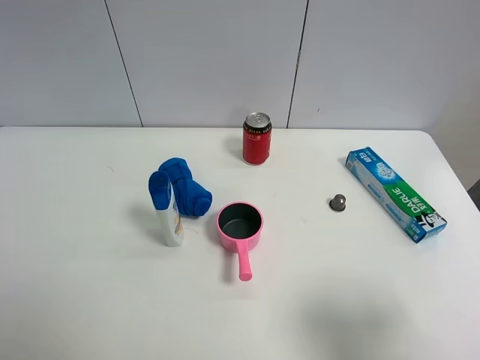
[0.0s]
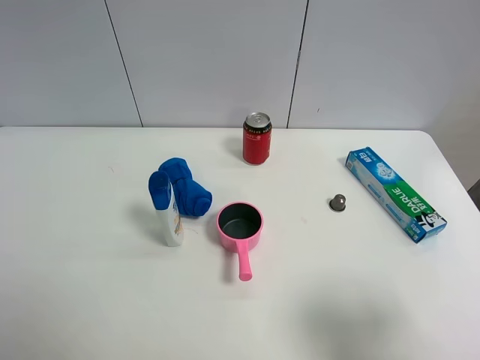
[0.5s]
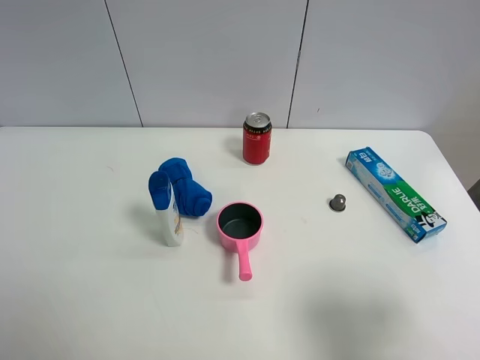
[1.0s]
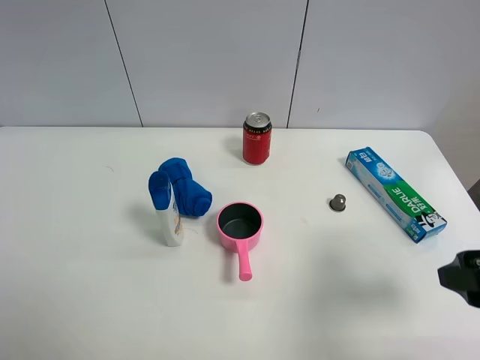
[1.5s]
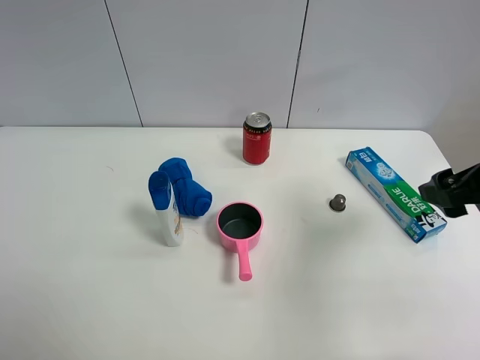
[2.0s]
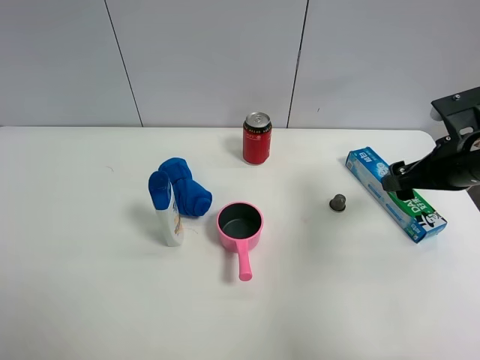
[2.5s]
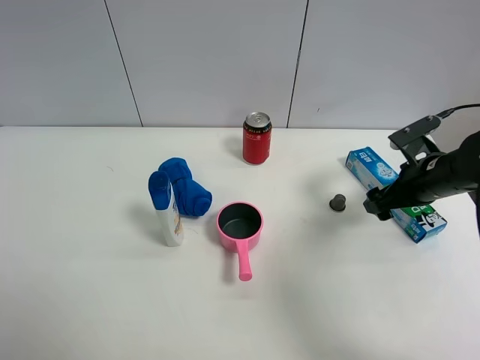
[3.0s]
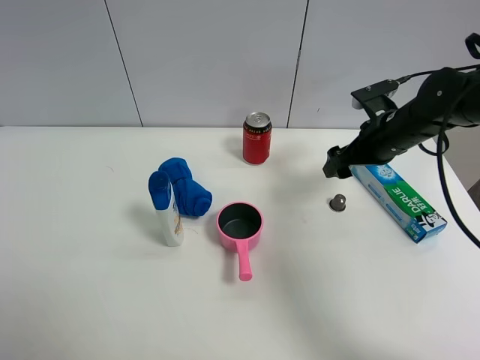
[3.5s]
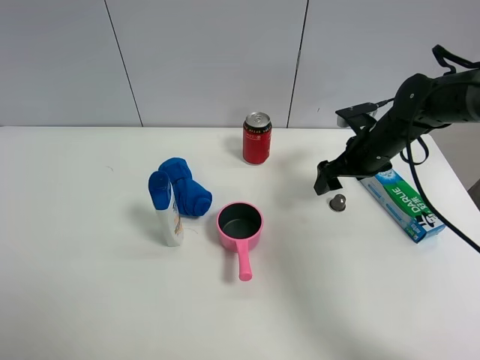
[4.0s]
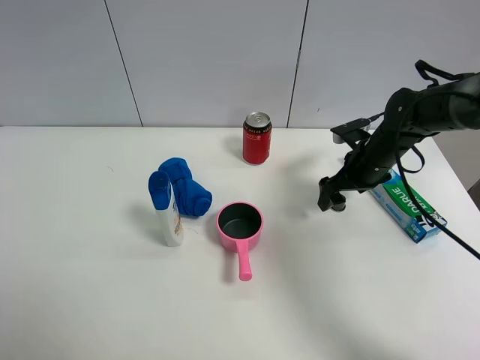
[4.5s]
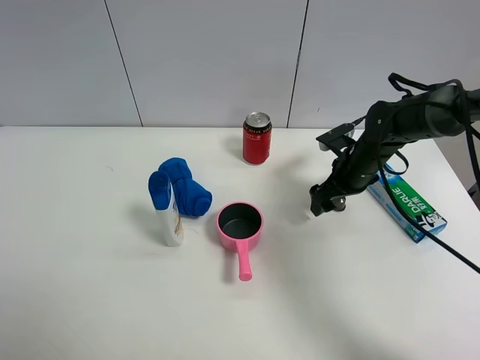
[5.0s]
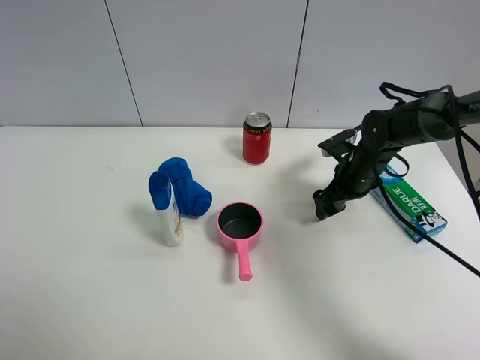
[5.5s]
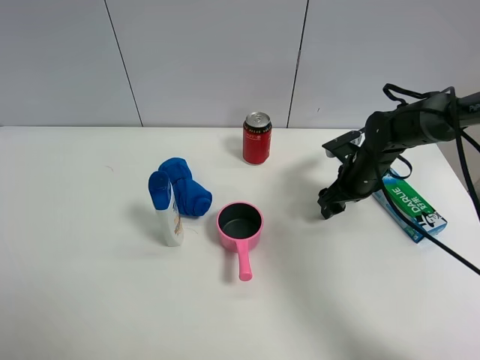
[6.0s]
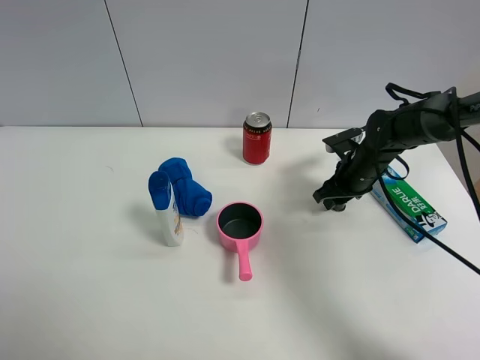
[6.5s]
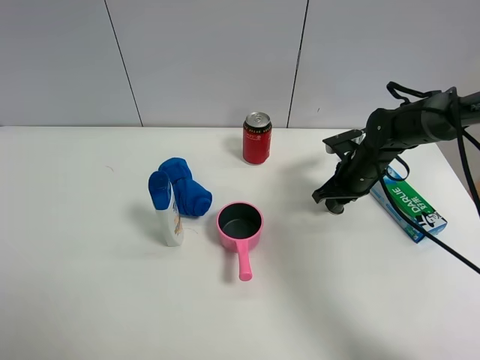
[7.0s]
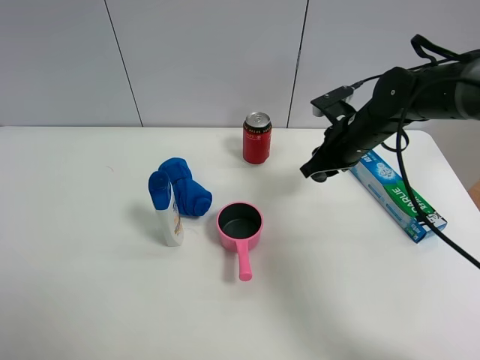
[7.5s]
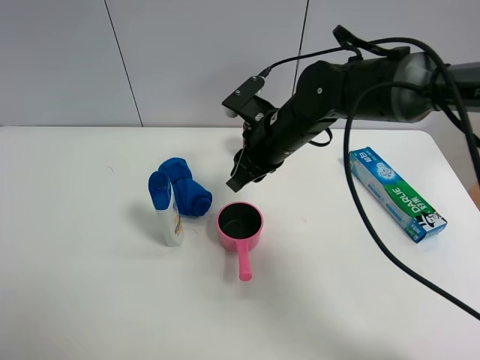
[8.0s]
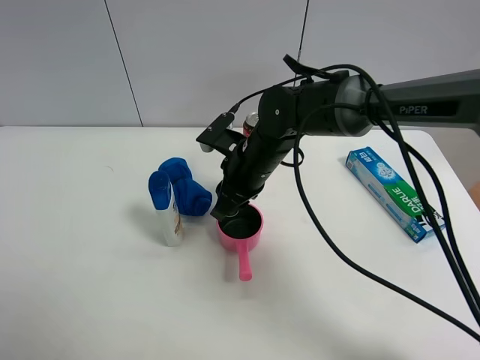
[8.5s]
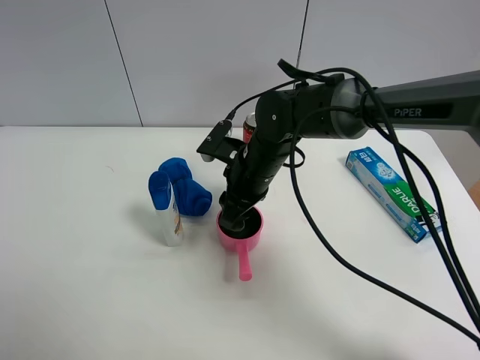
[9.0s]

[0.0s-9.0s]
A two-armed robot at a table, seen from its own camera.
Task of the whole recording: the gripper move the object.
Step, 0.0s to 6.5s: Grasp the coffee capsule with the right gripper.
0.0s to 2.0s: The right gripper heads forward, covering roughly 20 cm.
2.0s to 4.5s: The right gripper travels forward and downward by some 20 cm.
4.5s to 7.0s: The right gripper closes its fingers.
7.0s to 9.0s: The right gripper is displaced to the left by about 20 cm.

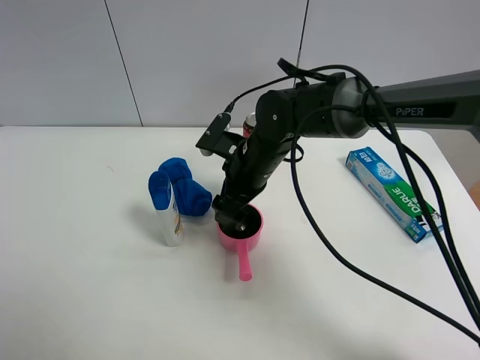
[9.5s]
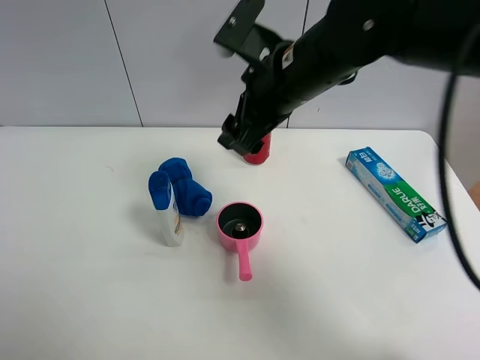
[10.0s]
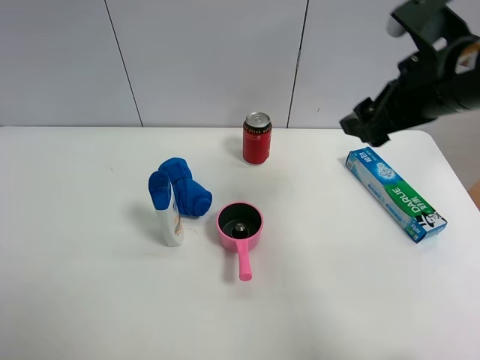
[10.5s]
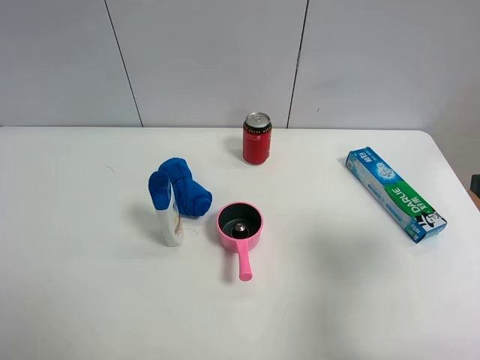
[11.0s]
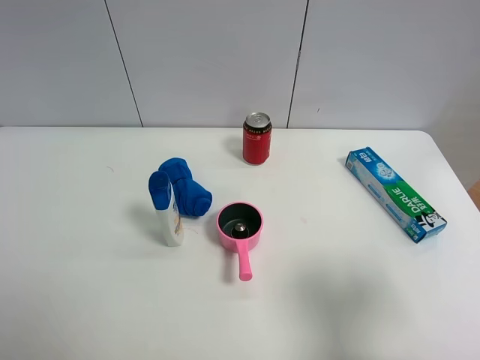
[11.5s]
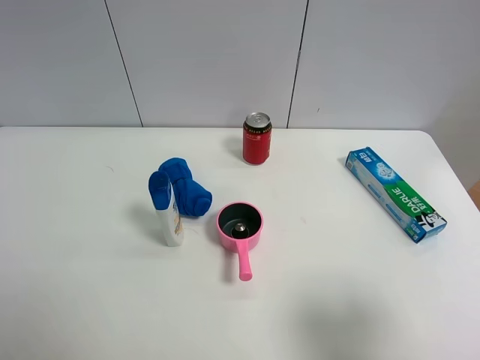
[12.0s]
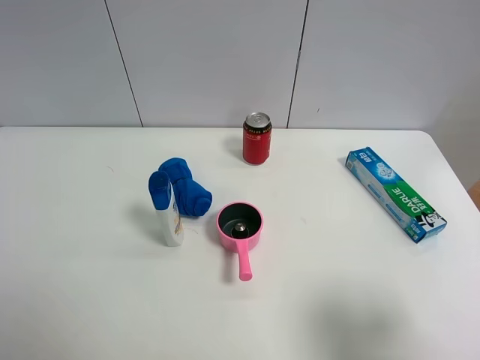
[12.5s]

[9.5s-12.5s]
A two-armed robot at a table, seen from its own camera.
Task of the whole recording: the gripper move the object.
9.5s to 11.0s: The right gripper travels to the right and backward by approximately 35 cm.
11.0s to 12.5s: The right gripper moves backward, roughly 10 cm.

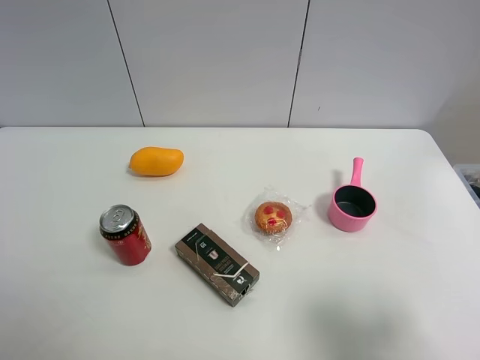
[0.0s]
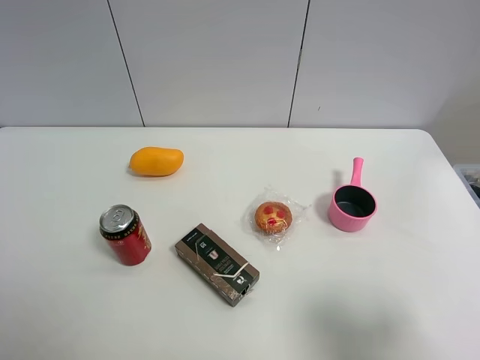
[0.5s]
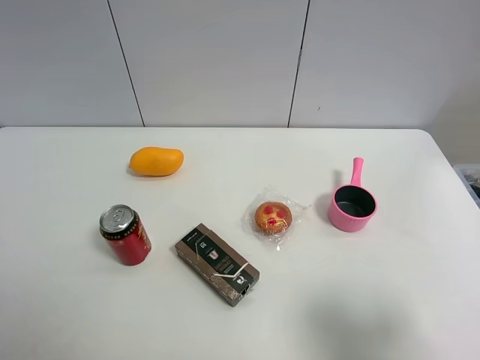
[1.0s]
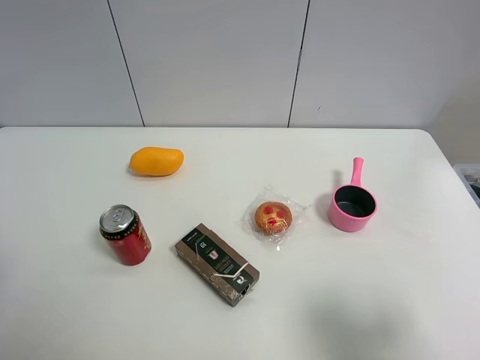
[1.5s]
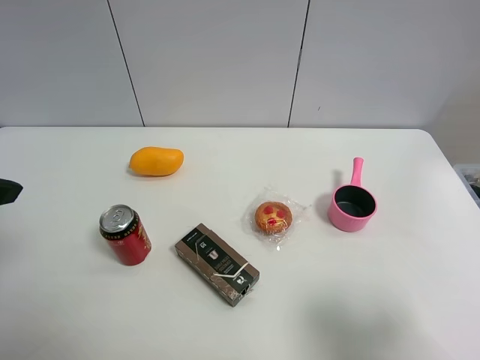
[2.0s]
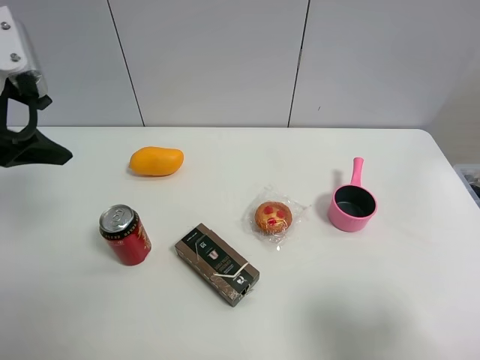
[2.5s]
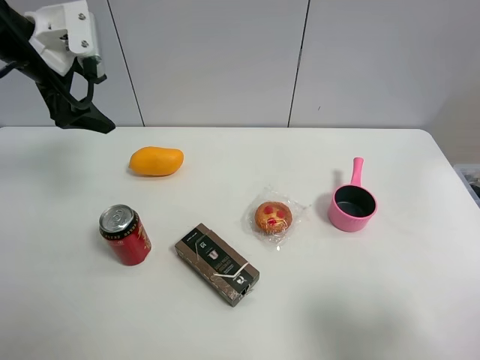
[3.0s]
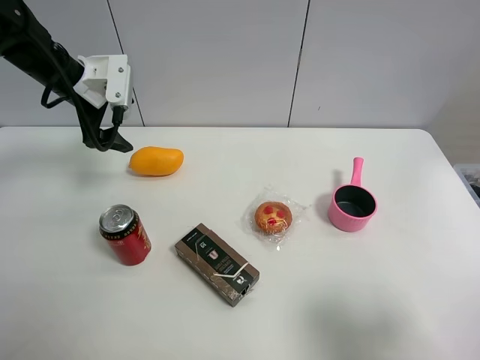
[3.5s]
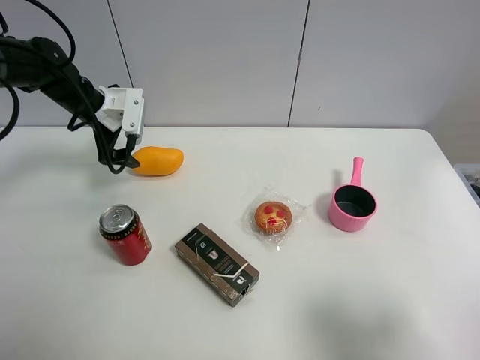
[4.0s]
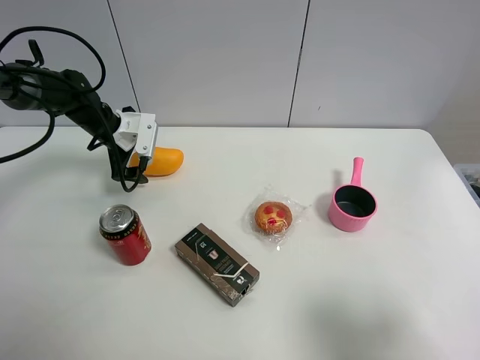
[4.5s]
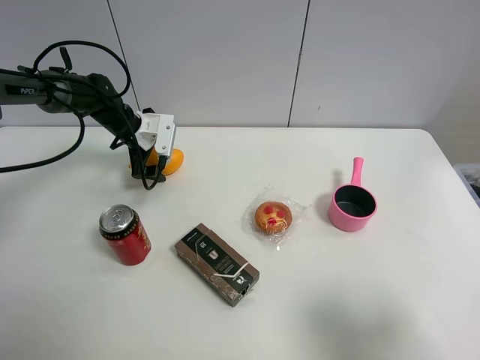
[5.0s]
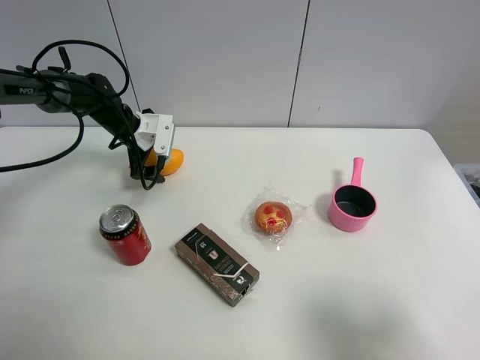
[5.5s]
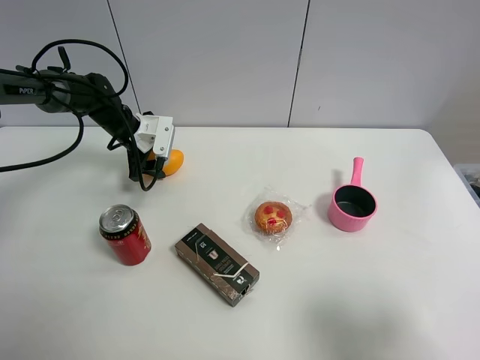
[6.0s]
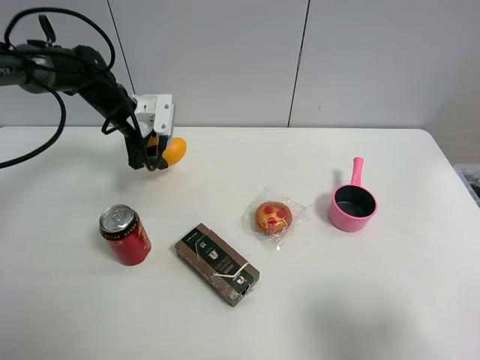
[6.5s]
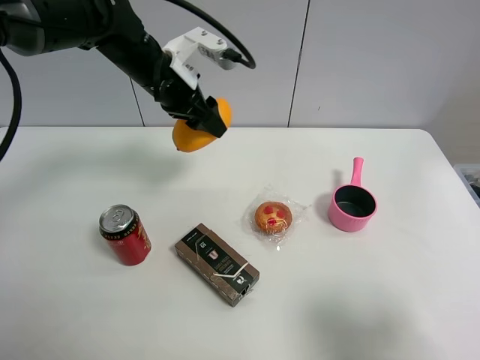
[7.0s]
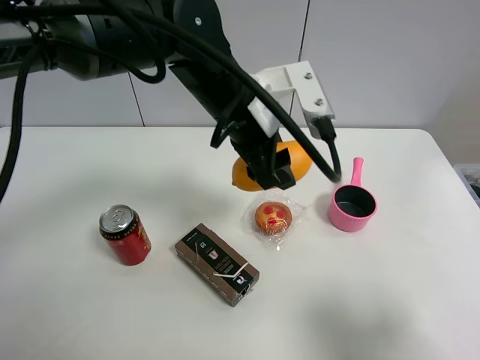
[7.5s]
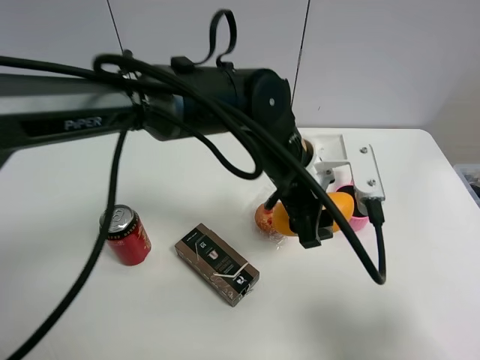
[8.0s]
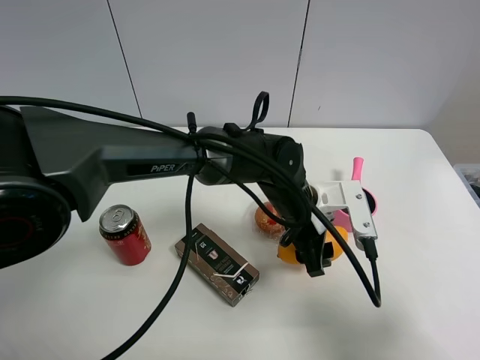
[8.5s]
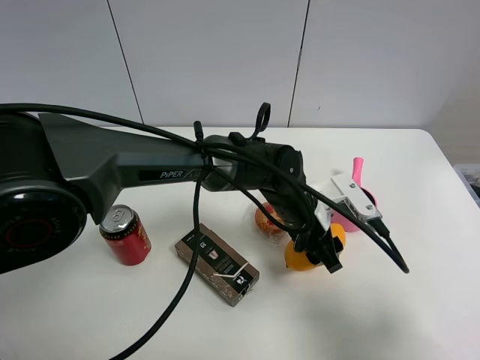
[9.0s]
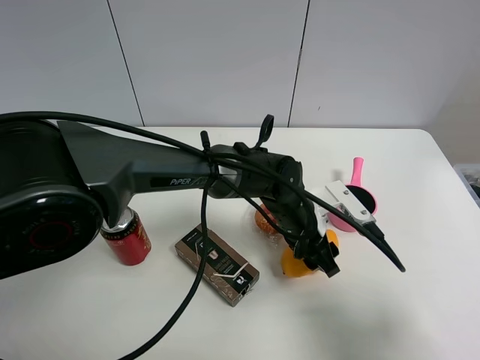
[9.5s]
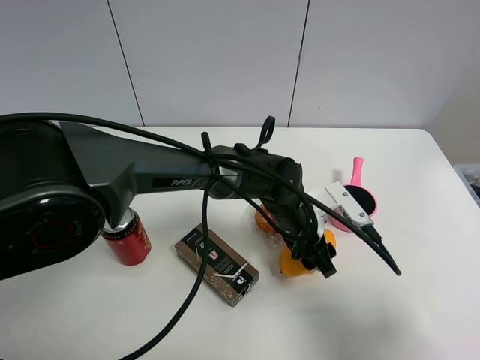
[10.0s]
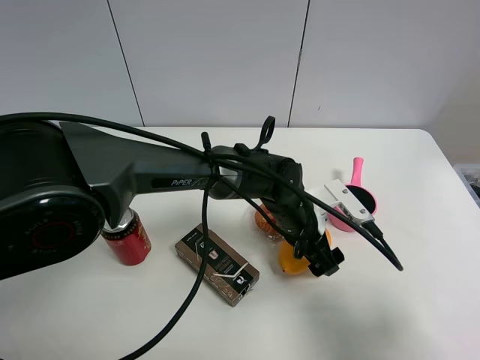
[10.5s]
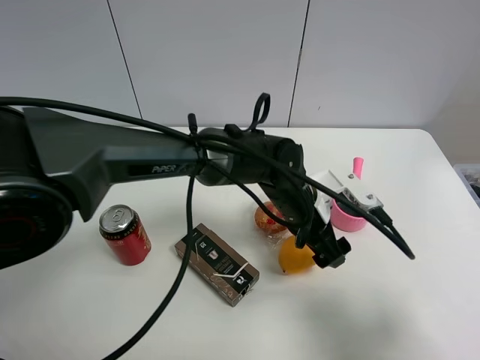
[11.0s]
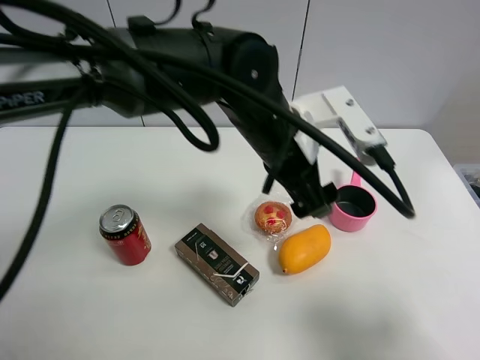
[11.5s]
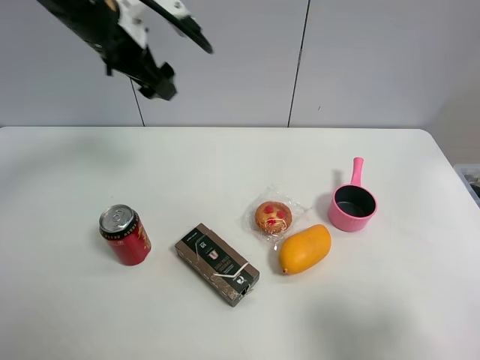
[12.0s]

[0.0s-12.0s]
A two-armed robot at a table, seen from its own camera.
Task of the whole recording: the gripper move the object.
Step, 0.0s to 5.5s: Grasp the mango with the left gripper.
Step, 6.0s to 10.5s: Place the mango on the table with the left gripper.
2.0s to 4.0s: The left gripper is displaced forward and downward by some 35 cm.
4.0s to 6.0s: The left gripper is displaced downward by approximately 5 cm, and closes.
6.0s to 8.0s: The left gripper heads to the right and backward, covering roughly 35 cm.
8.0s to 10.0s: The left gripper travels downward by approximately 10 cm.
10.0s to 12.0s: The left gripper shifts some 35 cm to the left and upward, and opens up.

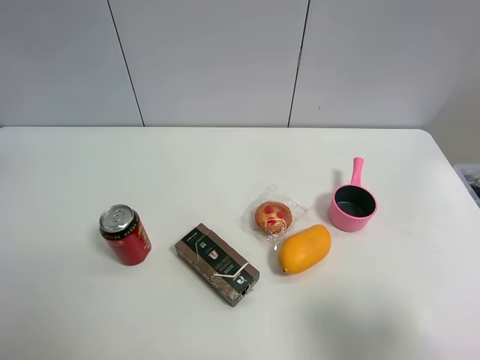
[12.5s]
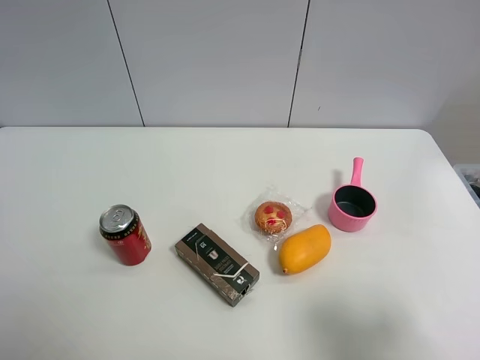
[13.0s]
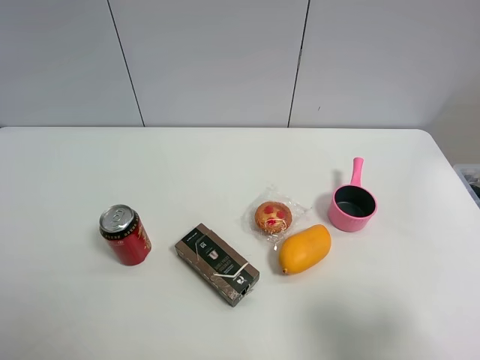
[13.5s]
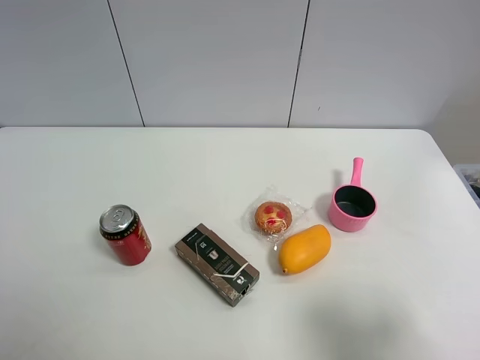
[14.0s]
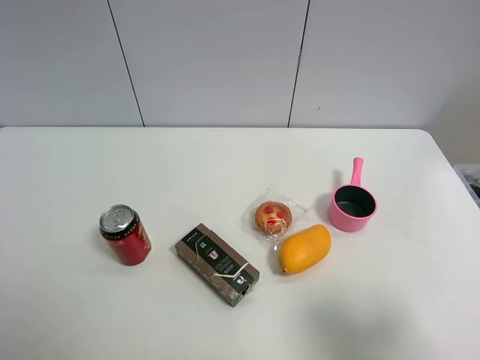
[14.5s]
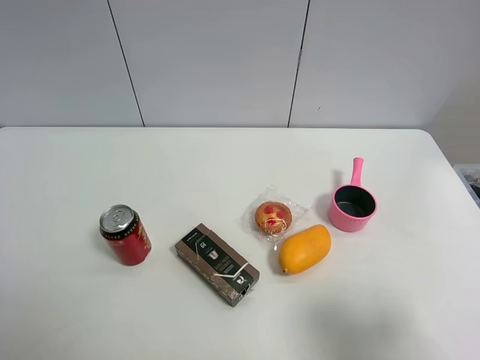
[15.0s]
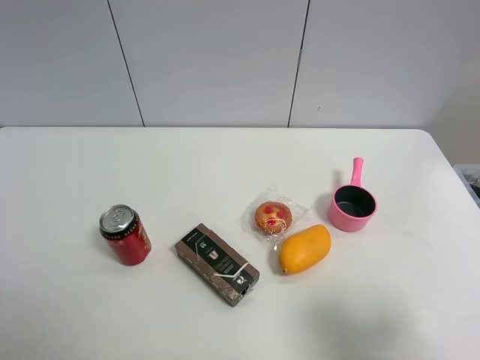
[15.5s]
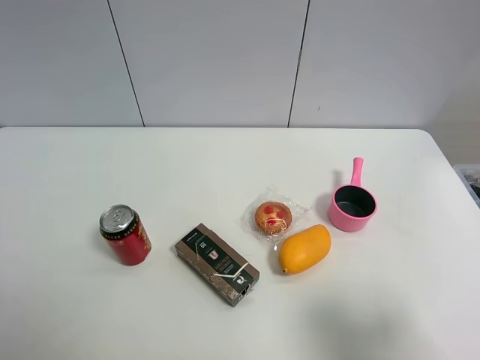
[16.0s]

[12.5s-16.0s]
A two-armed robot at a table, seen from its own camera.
Task of the whole recording: the gripper move the object.
14.5s to 16.0s: The two grippers keep their place.
